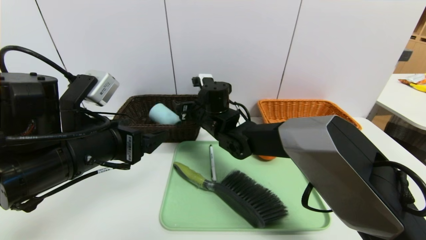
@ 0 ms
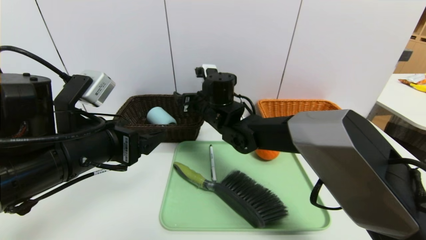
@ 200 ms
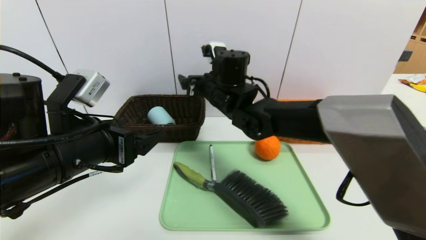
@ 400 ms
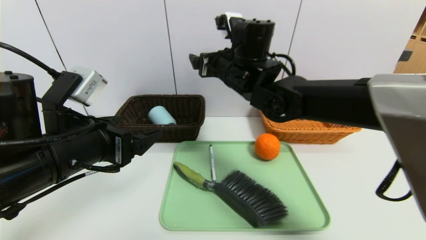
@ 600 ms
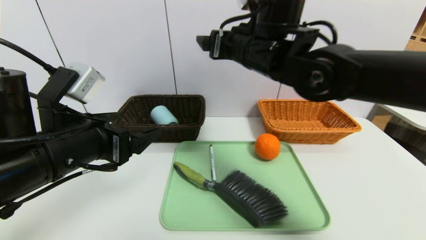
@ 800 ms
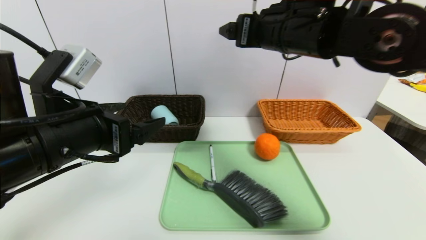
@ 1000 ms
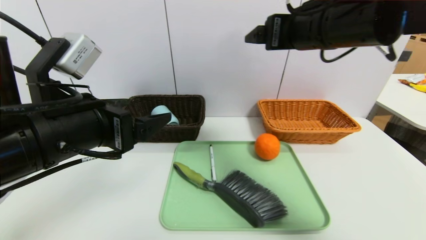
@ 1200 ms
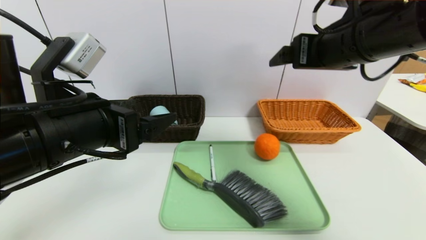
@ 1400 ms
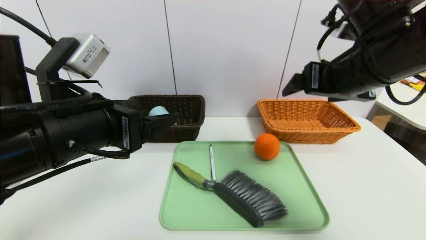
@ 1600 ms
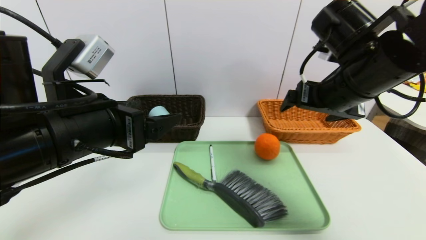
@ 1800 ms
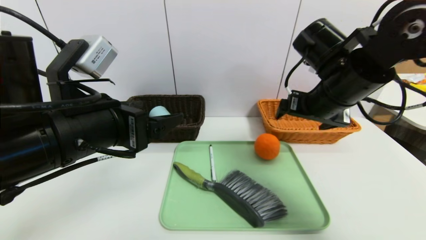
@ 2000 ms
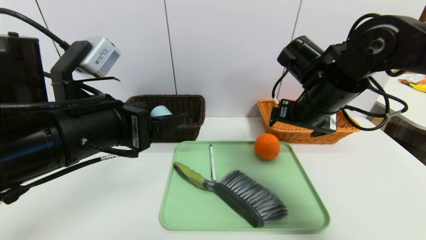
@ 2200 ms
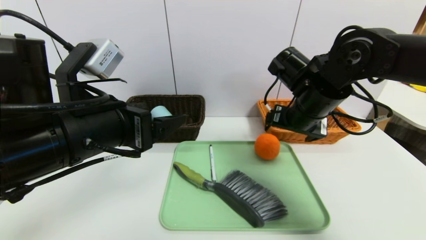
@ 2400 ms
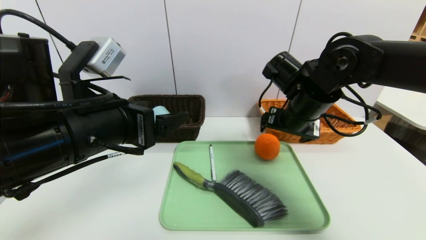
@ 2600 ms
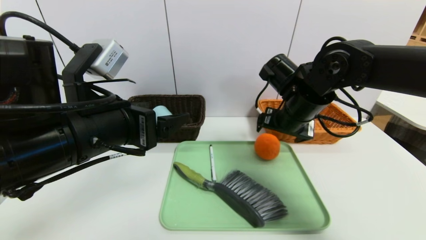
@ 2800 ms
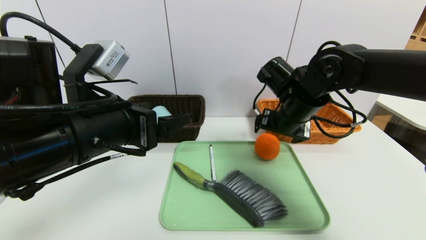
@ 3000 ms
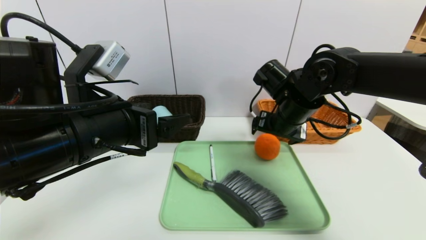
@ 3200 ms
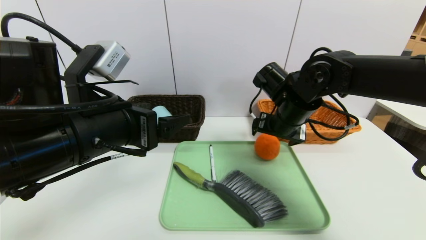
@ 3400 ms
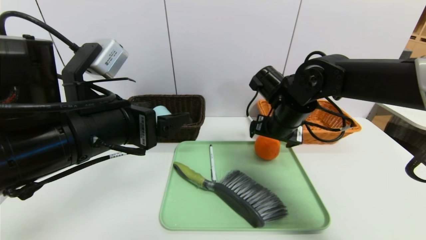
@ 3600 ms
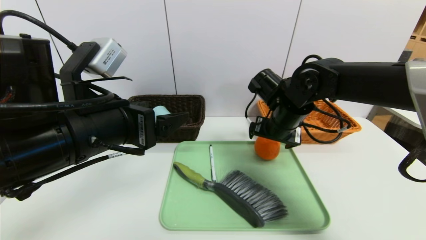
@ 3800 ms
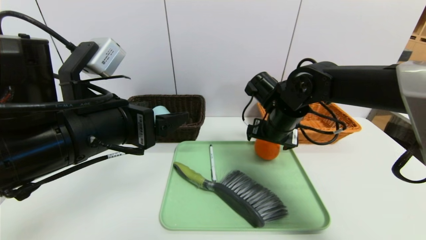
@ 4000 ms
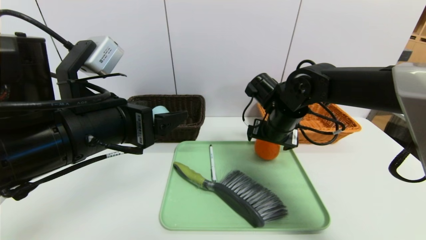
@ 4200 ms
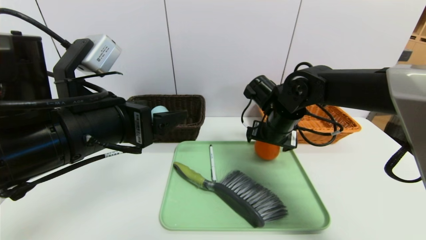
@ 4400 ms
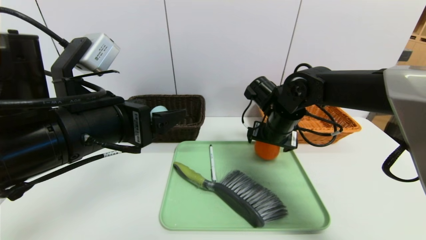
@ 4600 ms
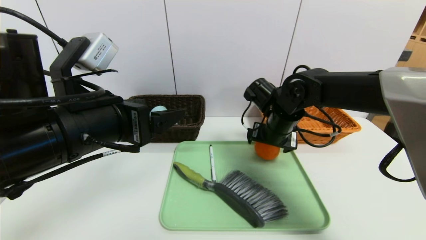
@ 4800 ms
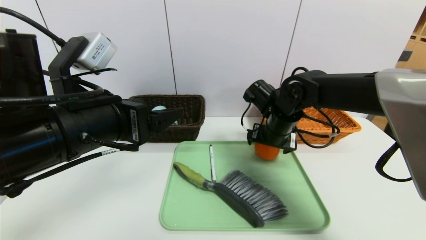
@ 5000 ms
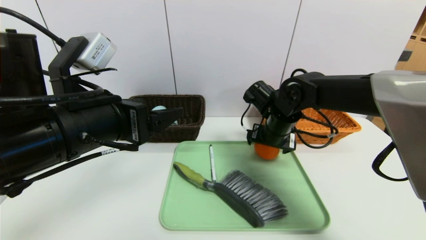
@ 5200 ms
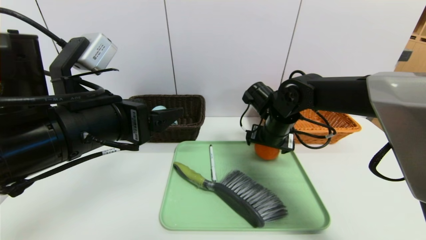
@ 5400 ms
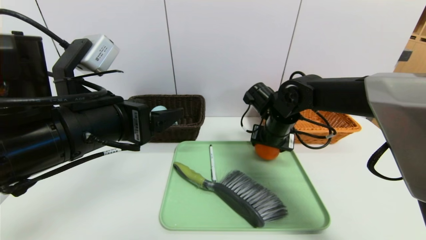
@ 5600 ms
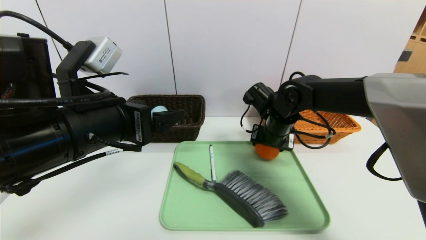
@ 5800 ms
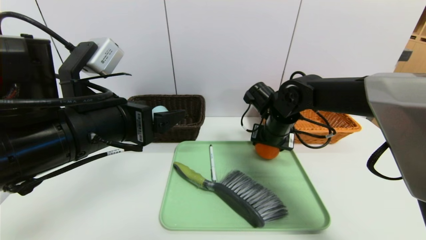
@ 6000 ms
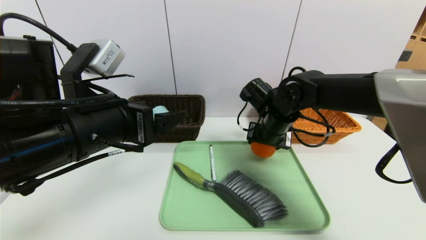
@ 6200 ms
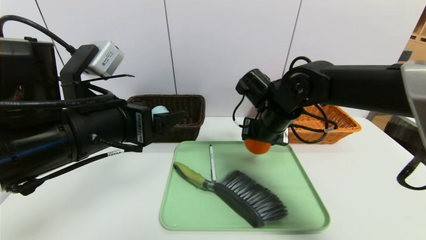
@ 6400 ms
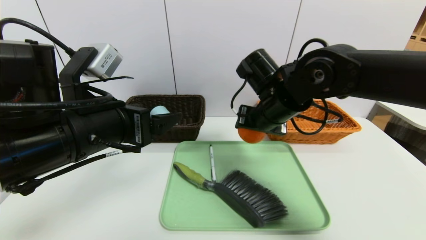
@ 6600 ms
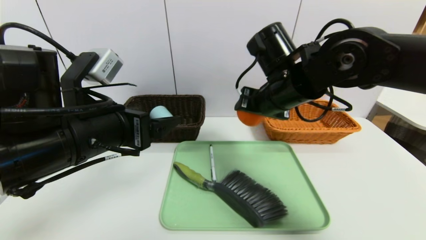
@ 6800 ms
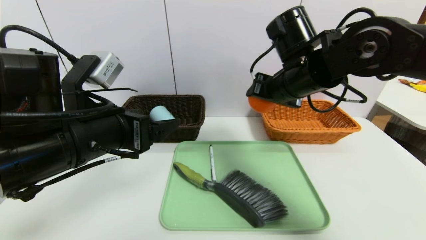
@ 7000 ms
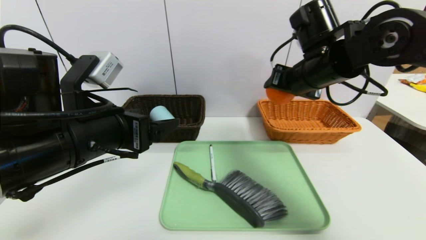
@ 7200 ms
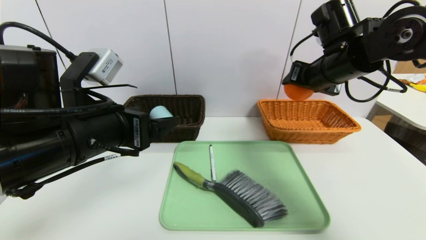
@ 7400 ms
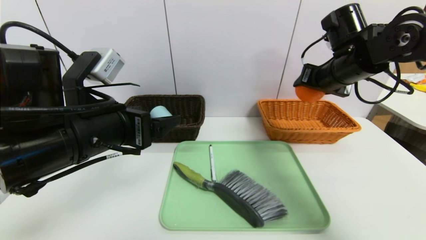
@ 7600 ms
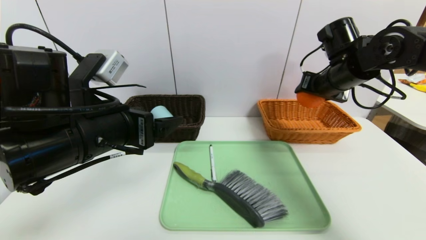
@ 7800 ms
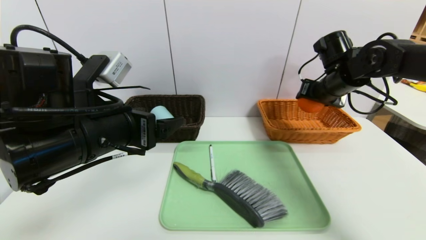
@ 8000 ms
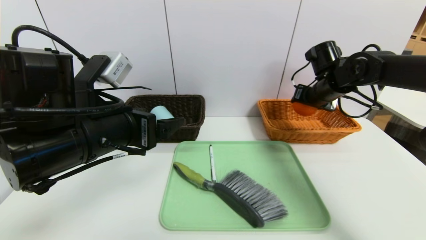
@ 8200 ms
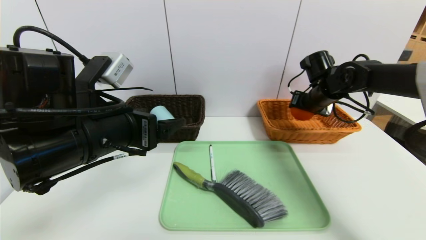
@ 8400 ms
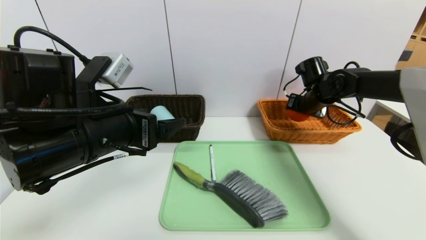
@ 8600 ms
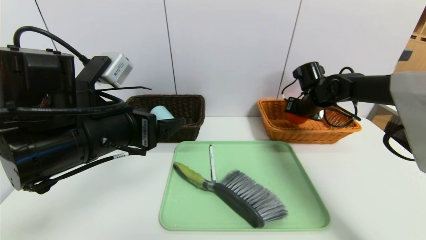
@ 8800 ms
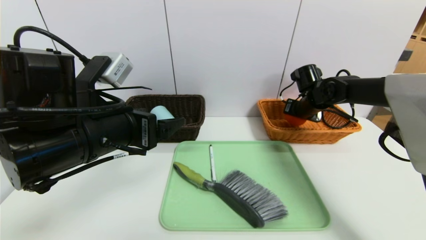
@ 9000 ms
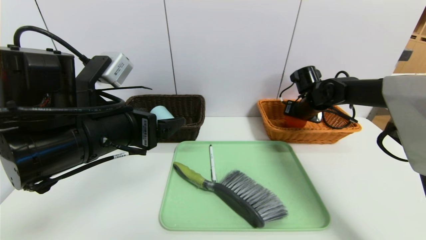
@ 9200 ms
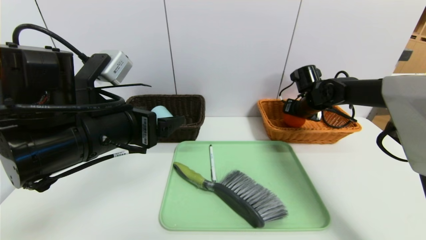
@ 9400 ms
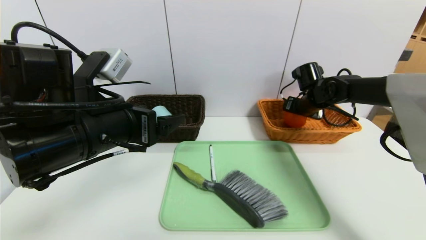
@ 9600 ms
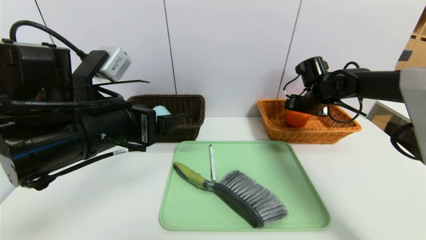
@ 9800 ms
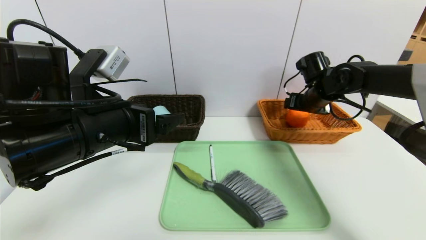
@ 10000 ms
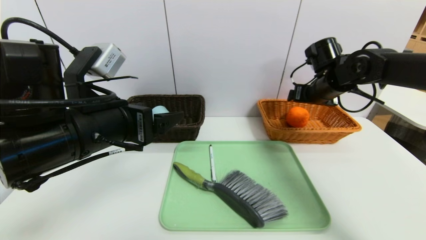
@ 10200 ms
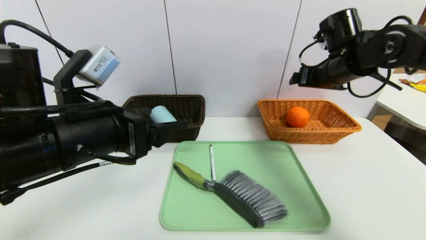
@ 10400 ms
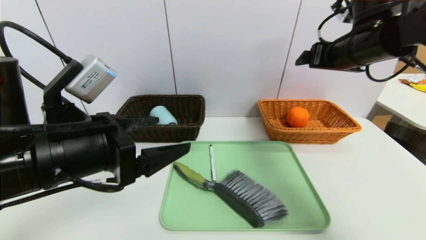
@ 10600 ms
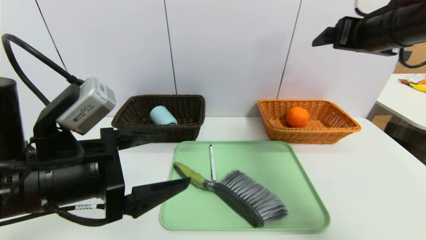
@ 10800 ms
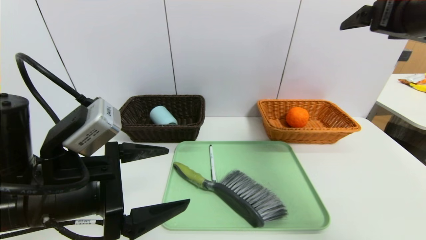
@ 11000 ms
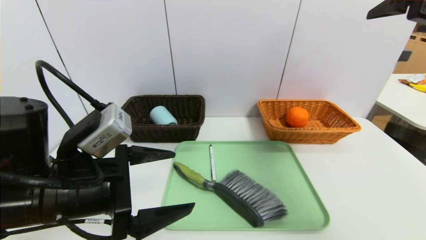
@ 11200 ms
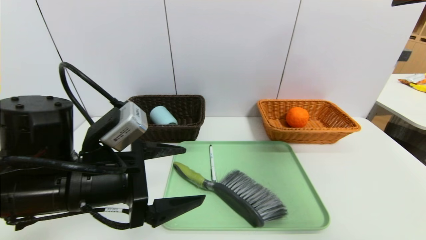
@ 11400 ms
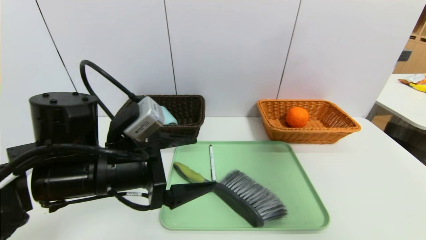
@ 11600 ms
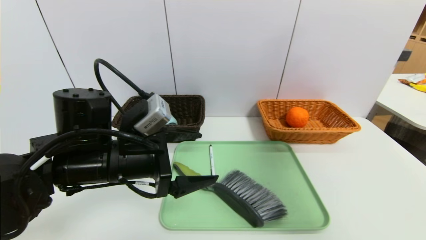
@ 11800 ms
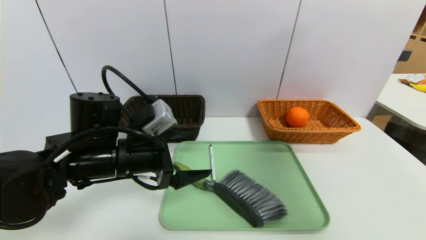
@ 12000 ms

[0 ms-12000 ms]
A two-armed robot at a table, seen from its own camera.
Task of the whole recording: place the food in the right basket with the right gripper, and place the non food items in the left basket with the left gripper.
Step, 600 ms to 9600 ms: Grasp the orange and put it in the right basket.
0 ms to 1600 ms: The right gripper goes approximately 30 cm to the right, upward and backward, and opens.
1600 ms to 3000 ms: The right gripper goes approximately 15 cm downward and forward.
3000 ms to 4400 ms: The grippers move only a little.
4400 ms to 6000 ms: The right gripper closes up.
6000 ms to 7600 ms: The right gripper travels upward and to the right by some 15 cm.
7600 ms to 9000 ms: The right gripper travels downward and forward by approximately 15 cm.
9000 ms to 10400 ms: The right gripper is displaced upward and backward by some 15 cm, and opens.
10400 ms to 12000 ms: The right gripper moves backward and upward, approximately 25 cm; the left gripper travels downward and forward by roughly 10 cm.

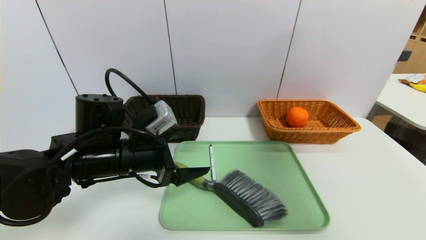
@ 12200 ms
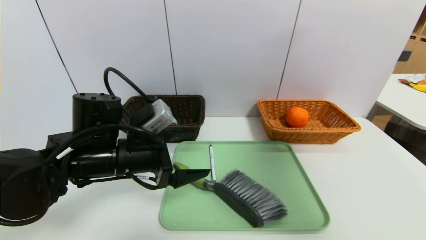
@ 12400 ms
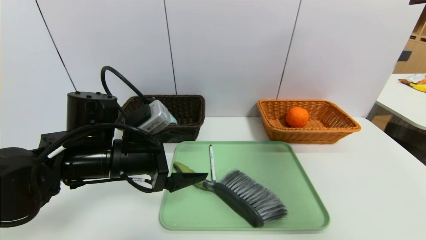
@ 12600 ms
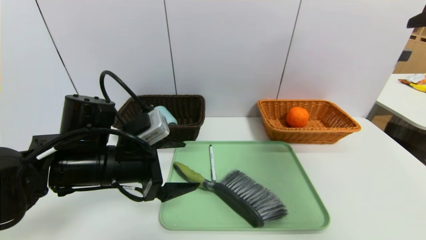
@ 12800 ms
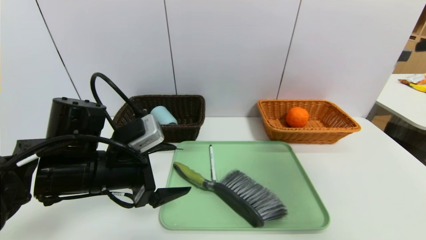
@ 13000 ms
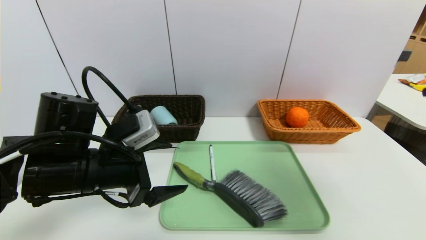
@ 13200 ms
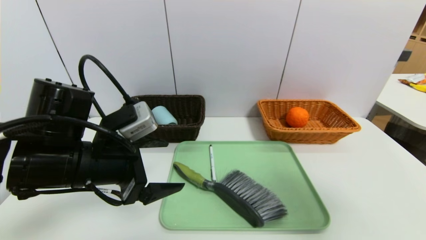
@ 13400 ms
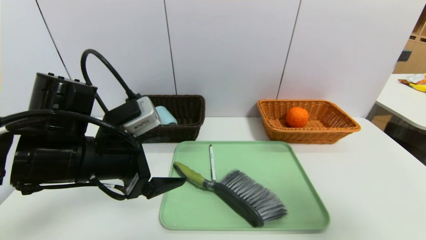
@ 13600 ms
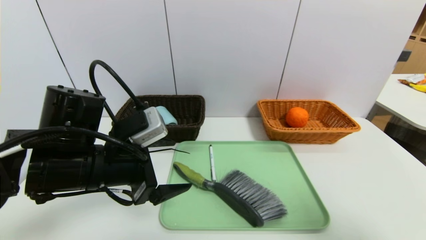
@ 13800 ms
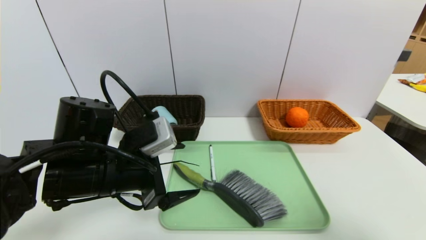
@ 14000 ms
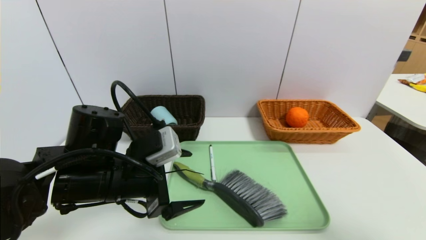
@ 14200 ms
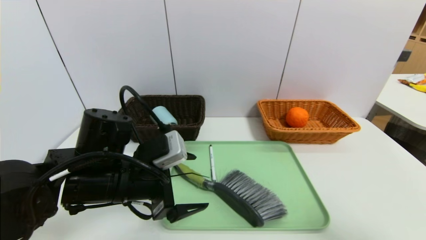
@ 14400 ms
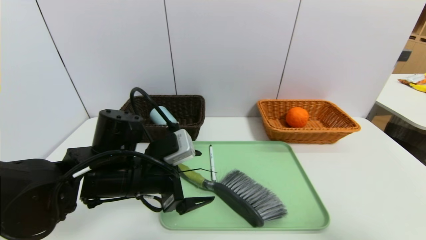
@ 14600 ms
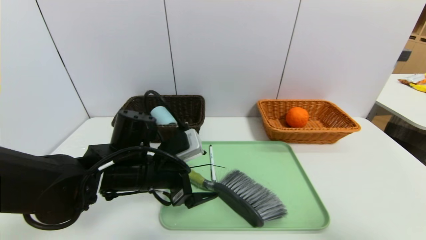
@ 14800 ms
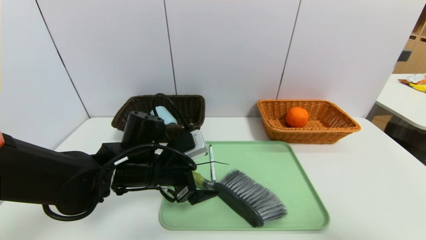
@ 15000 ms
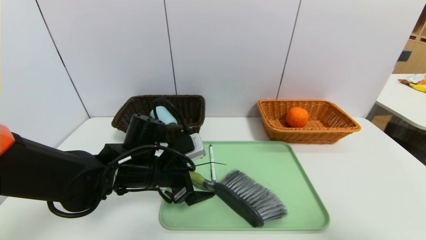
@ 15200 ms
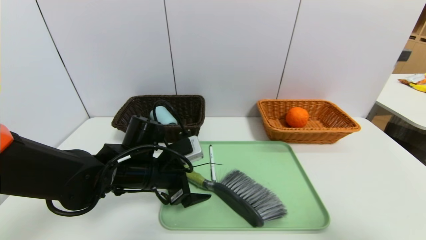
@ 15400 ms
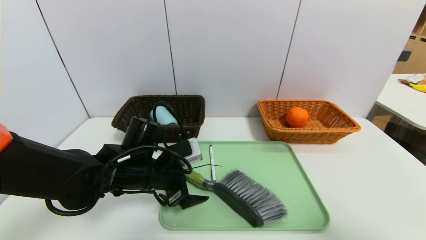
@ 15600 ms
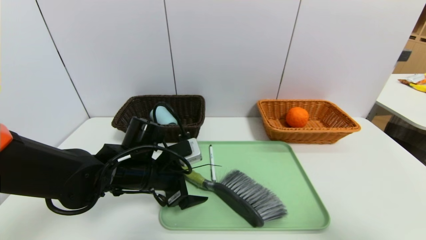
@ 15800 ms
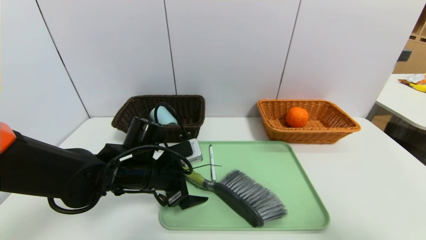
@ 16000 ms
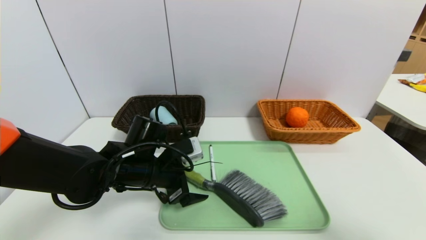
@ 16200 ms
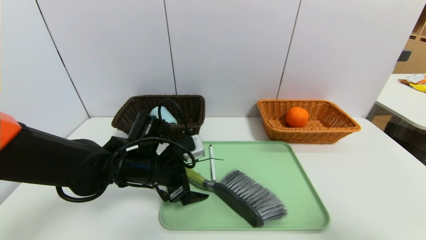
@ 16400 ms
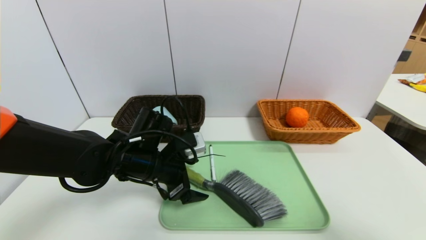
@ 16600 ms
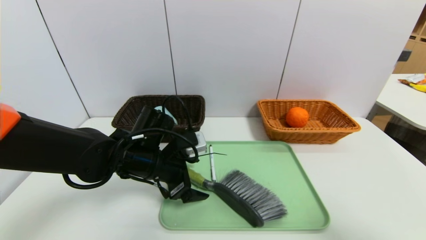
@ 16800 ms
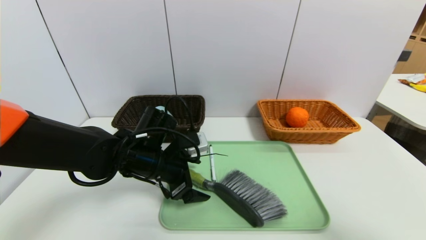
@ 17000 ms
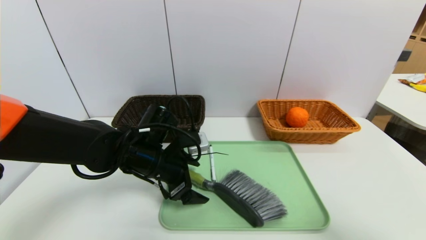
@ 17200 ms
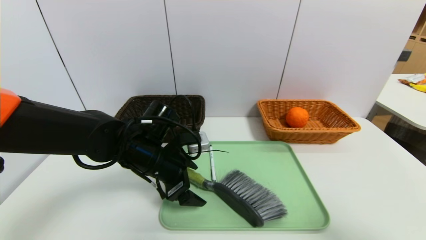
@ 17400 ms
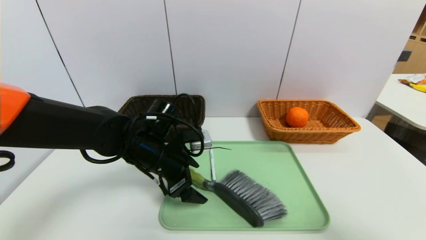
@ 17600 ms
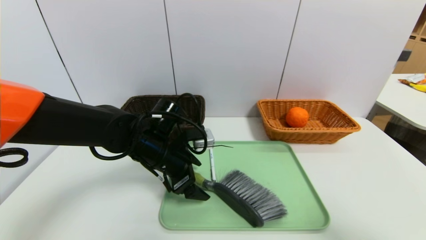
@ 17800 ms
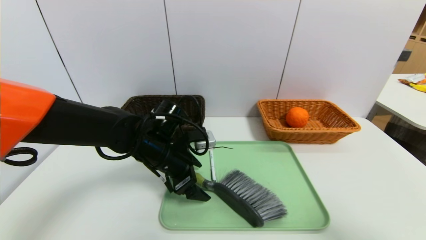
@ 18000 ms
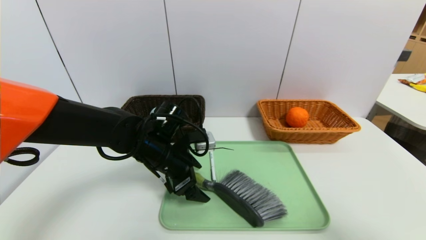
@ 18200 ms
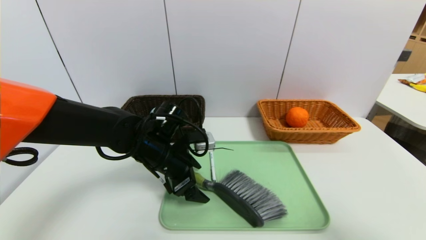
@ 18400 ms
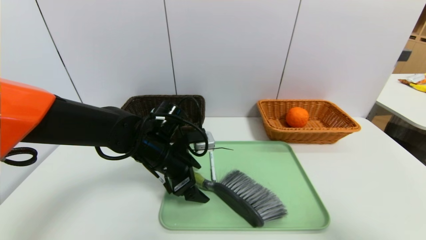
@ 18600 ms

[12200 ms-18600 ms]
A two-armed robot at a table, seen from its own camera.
Task of the whole recording: place the food in the right basket with the right gripper, and place the non food items in the left basket with the left gripper.
12200 ms to 13800 ms: The right gripper heads backward and downward, covering some 15 cm; the left gripper ends up some 5 cm from where it was.
13800 ms to 15400 ms: The left gripper moves downward and forward, some 10 cm.
15400 ms to 17000 ms: The grippers make only small movements.
17000 ms to 18600 ms: The grippers move only a little.
